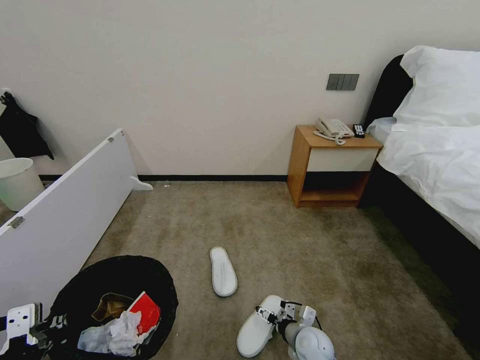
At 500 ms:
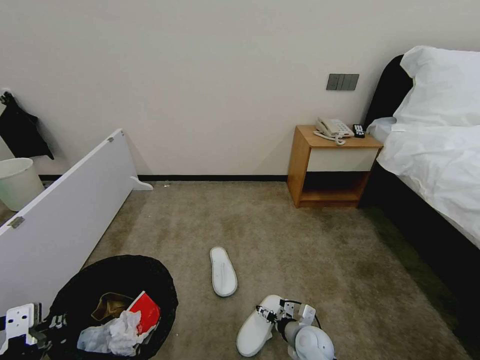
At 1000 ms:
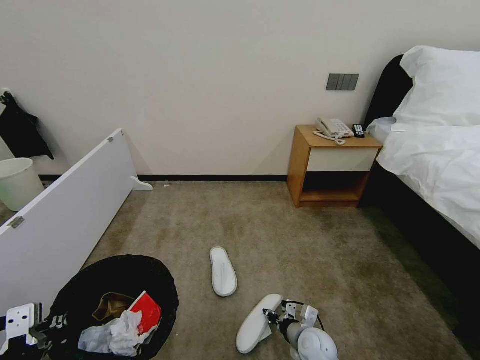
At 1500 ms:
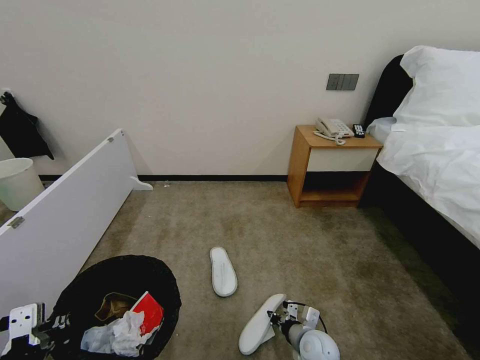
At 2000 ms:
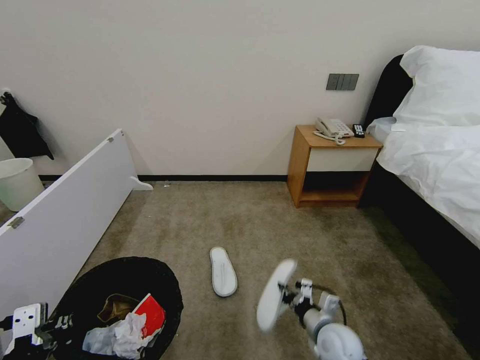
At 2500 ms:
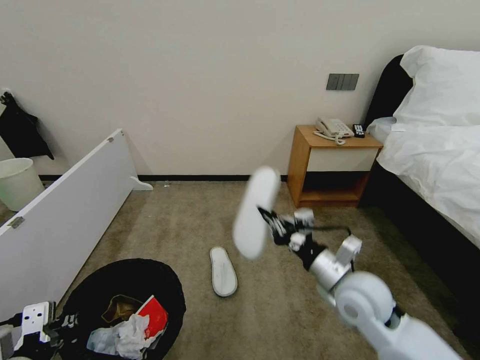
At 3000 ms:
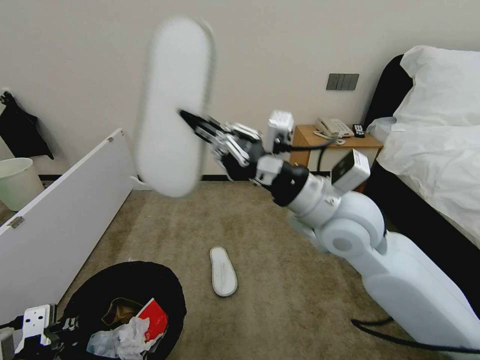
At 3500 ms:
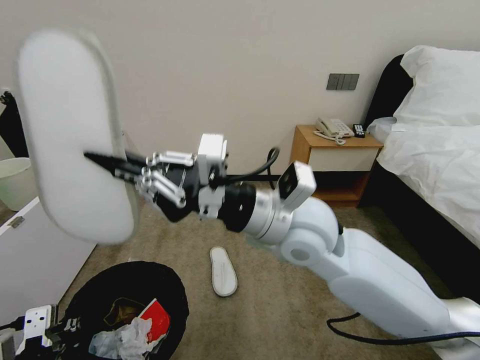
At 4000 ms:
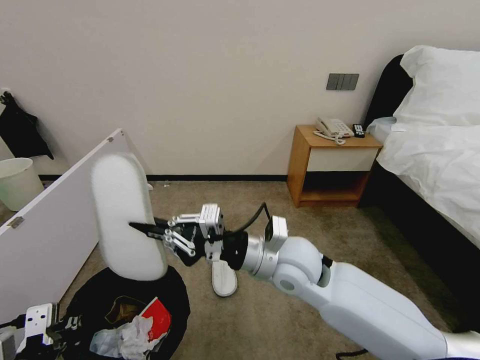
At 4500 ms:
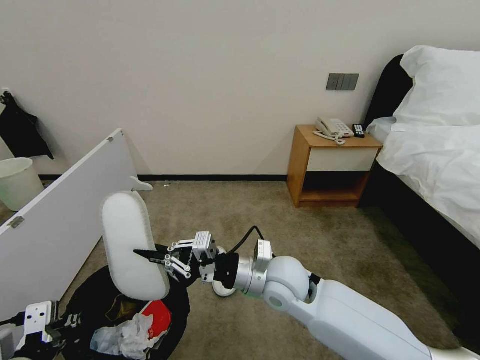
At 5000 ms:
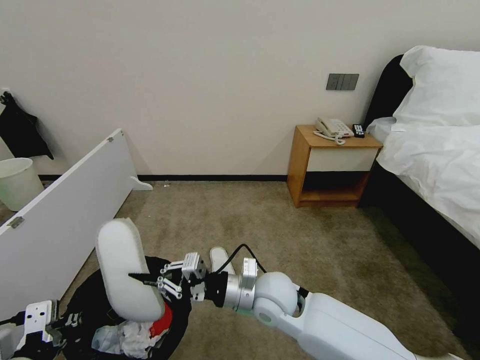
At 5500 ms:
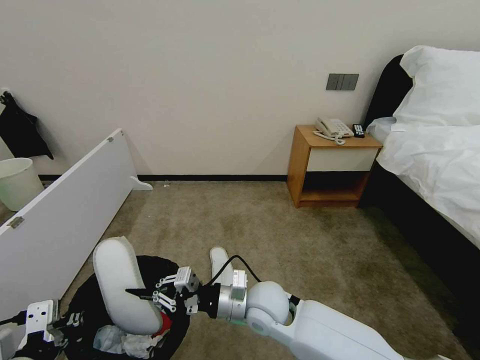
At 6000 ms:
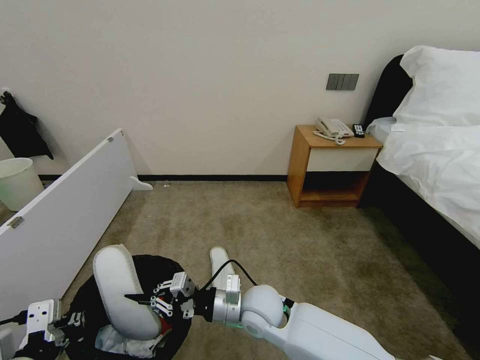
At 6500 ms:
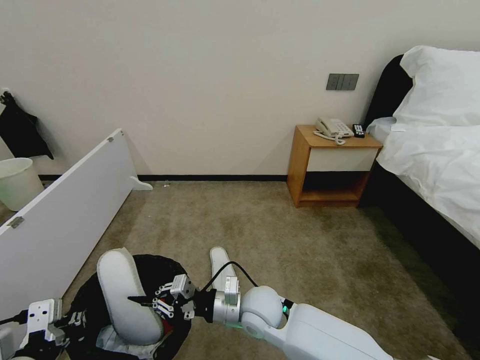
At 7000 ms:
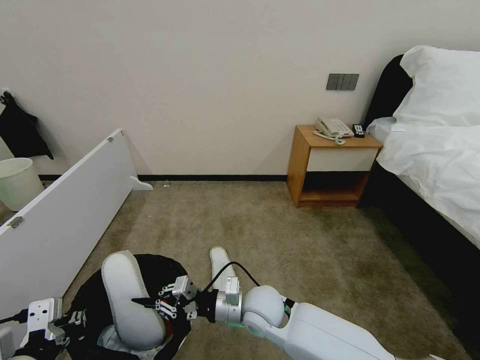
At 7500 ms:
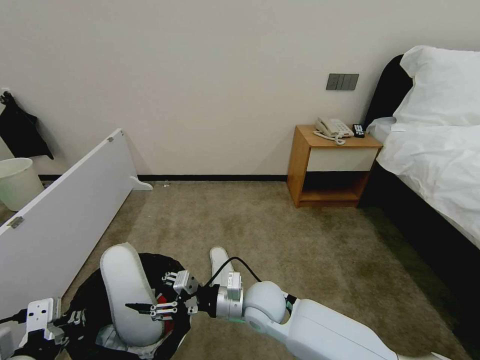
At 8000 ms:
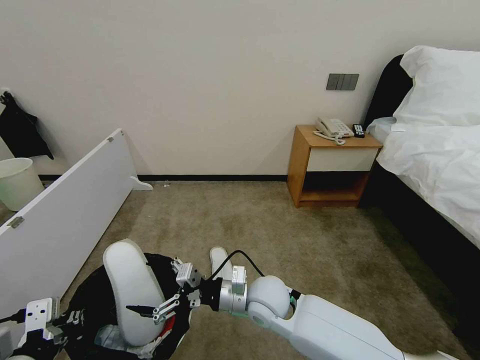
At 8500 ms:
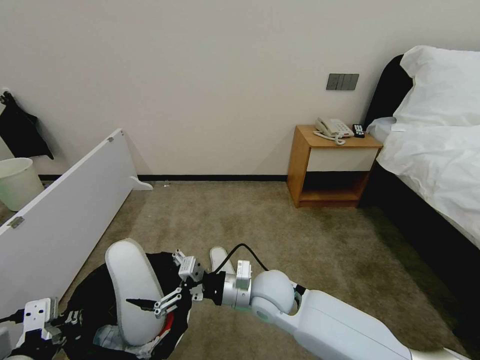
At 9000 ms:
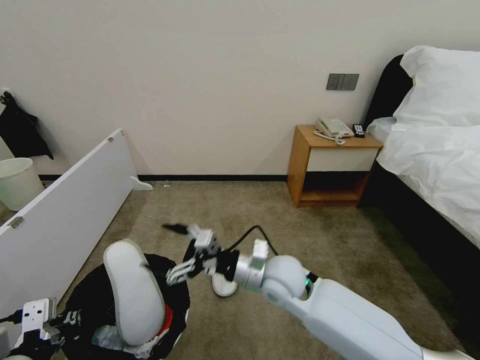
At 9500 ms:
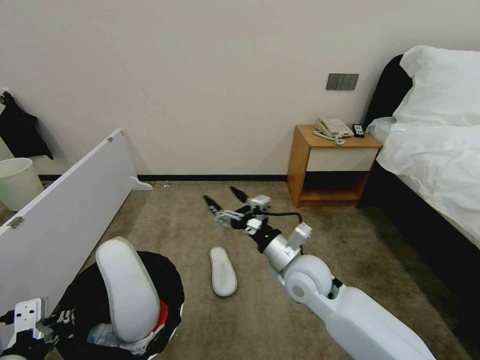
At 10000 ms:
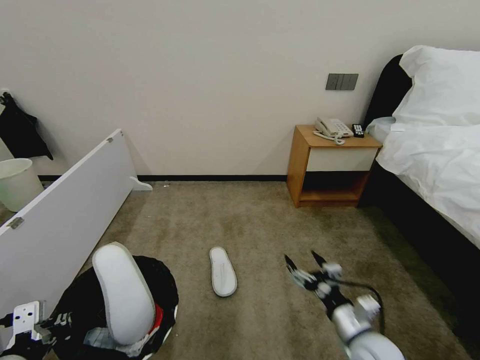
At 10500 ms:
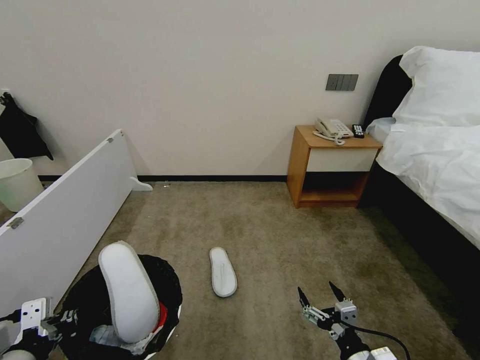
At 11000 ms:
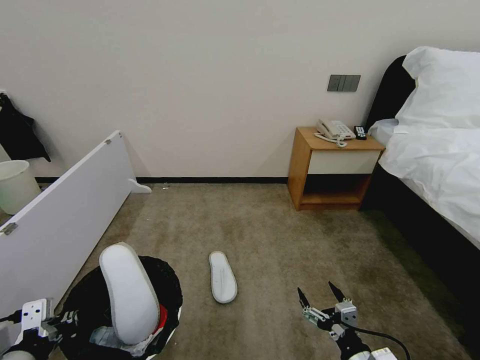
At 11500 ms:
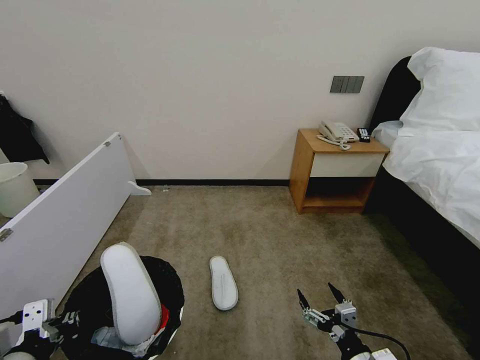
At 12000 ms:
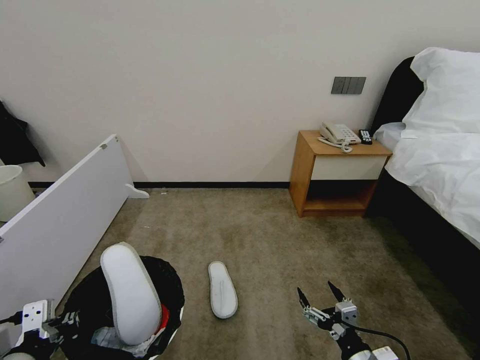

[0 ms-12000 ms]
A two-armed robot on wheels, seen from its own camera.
Task of the whole recording: Pick up the trash bin, then pick up the garbage from the floor and place it into the trash bin.
0 ms to 2000 ms: The right gripper goes roughly 10 cm upward, and closes up.
2000 ms to 4000 ms: The right gripper travels upward and to the left by some 30 cm.
4000 ms to 6000 ms: The right gripper shifts some 15 cm downward.
6000 ms to 8000 ms: The right gripper opens.
8000 ms to 10000 ms: The right gripper shifts about 25 cm to the right and backward.
10000 ms to 12000 ms: The right gripper moves backward, approximately 10 cm.

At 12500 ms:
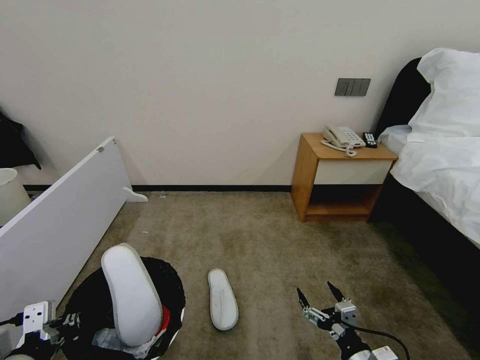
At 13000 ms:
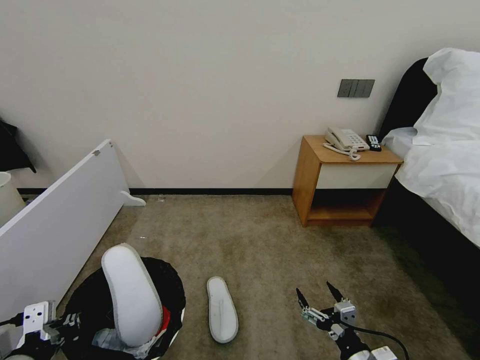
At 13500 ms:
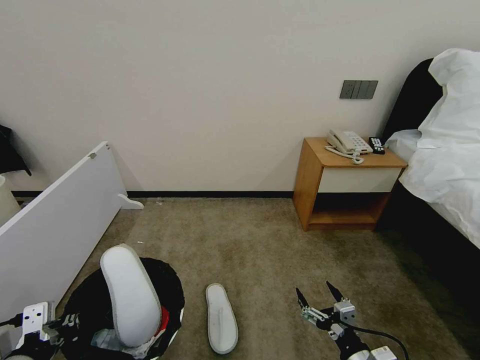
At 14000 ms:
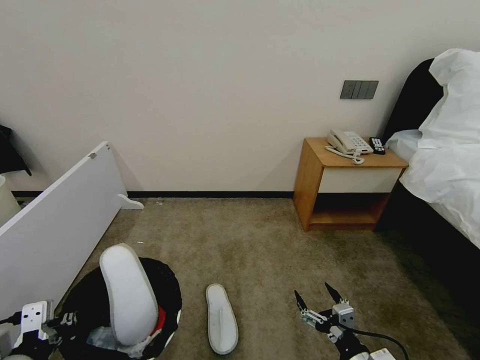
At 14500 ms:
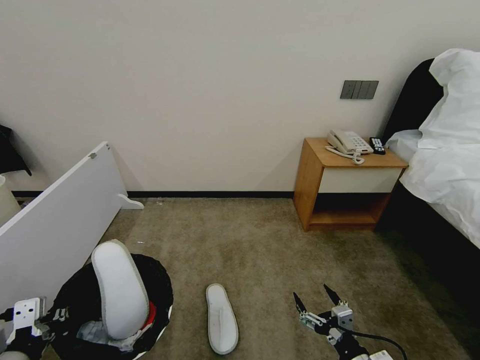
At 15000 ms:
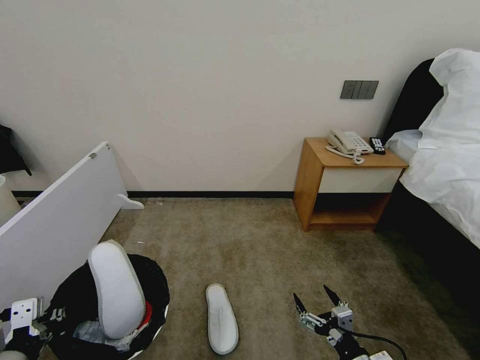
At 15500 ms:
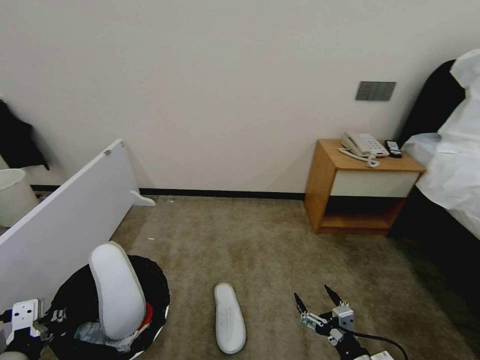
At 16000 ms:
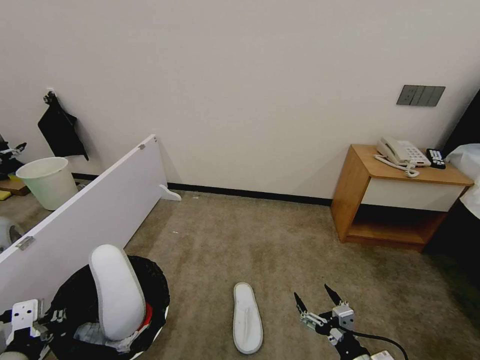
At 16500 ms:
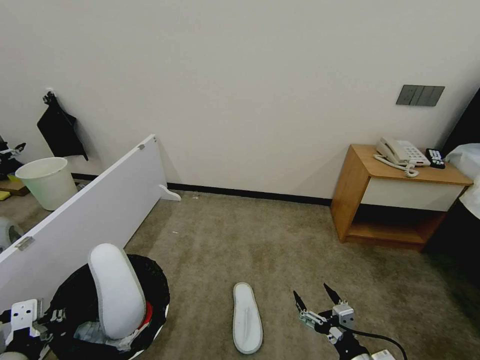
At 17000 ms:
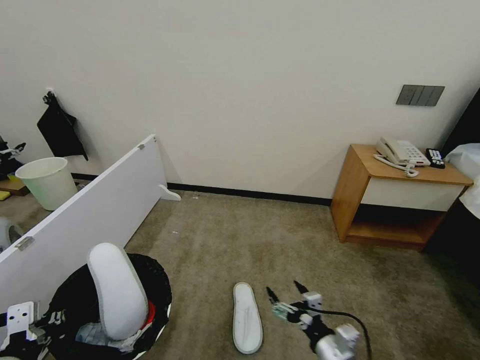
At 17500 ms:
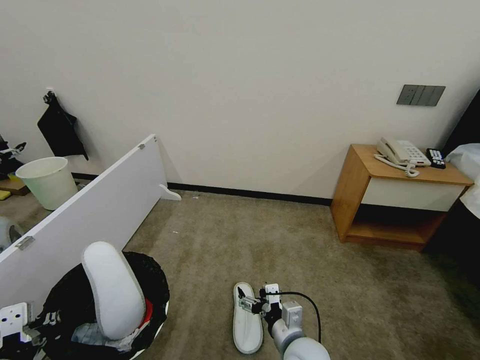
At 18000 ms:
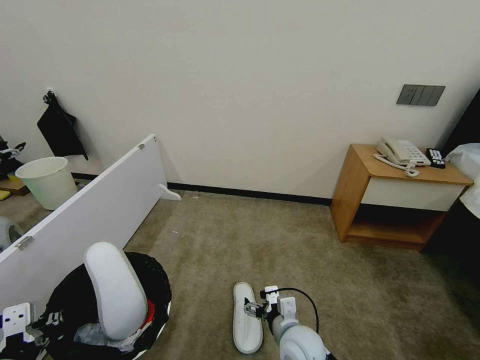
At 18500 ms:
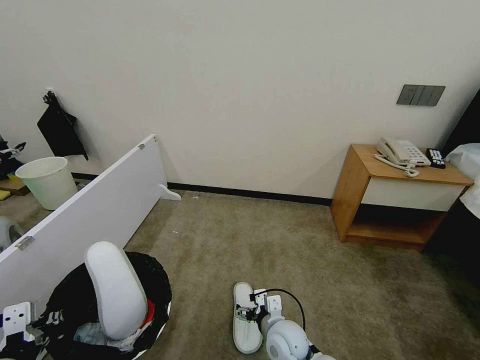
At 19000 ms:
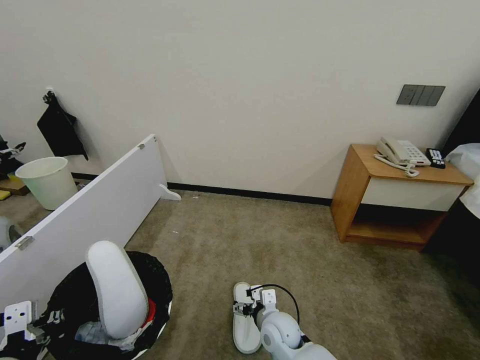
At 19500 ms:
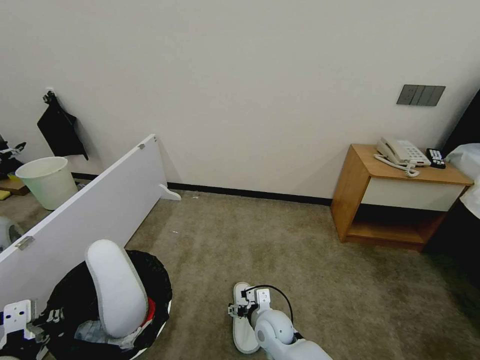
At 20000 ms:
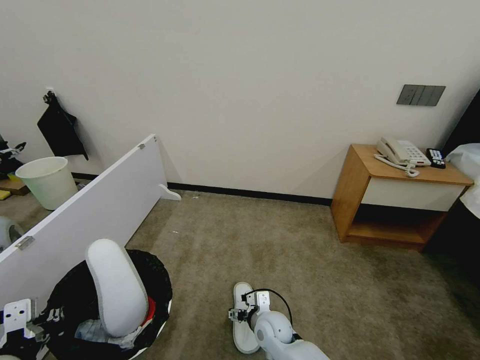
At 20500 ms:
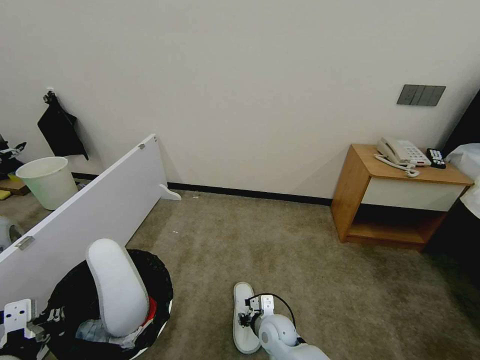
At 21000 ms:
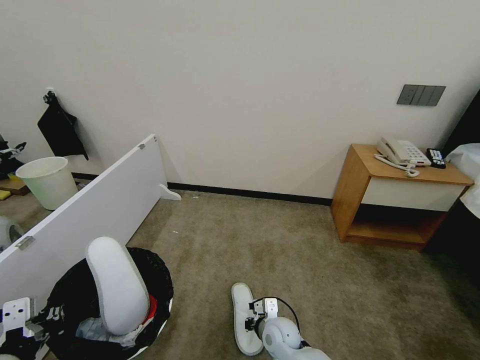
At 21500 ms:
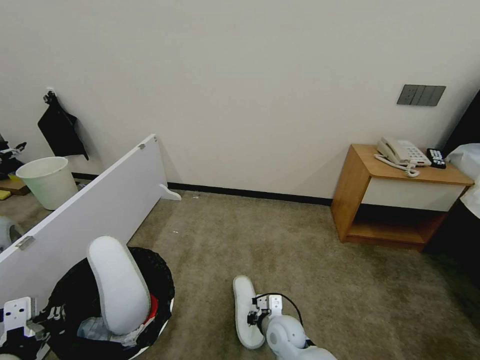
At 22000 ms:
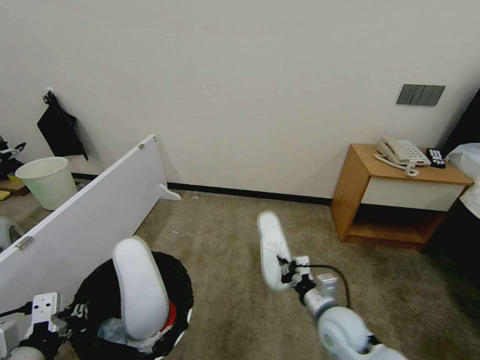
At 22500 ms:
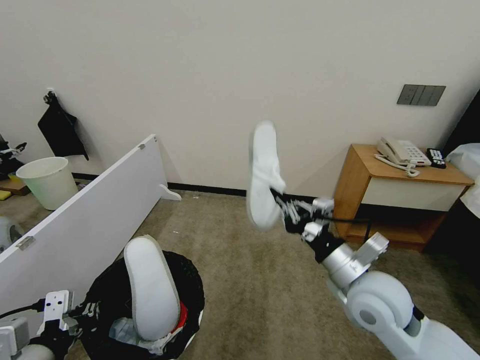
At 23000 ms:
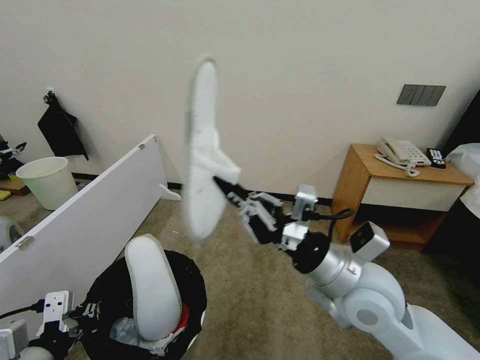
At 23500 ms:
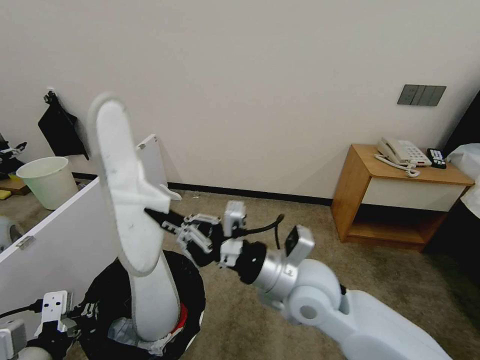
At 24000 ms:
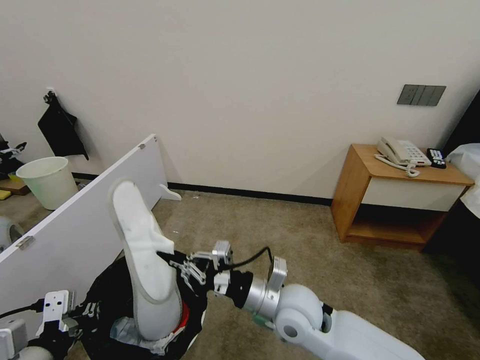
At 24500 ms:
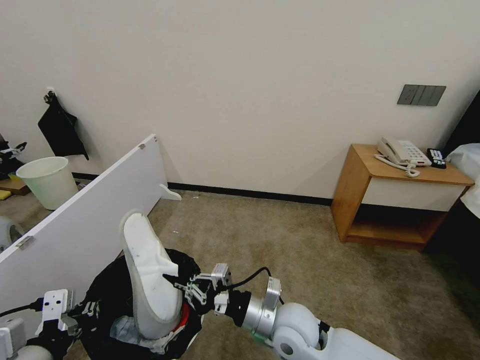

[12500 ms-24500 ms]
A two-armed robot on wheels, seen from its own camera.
Task of the whole recording: Pick up the trash bin, then pick up the garbage from the floor and place it into the trash bin.
12500 ms to 14500 ms: The grippers make only small movements.
16500 ms to 18500 ms: The right gripper travels to the left and forward by some 20 cm.
18500 ms to 20500 ms: The right gripper goes roughly 5 cm downward, and closes its fingers.
20500 ms to 22500 ms: The right gripper moves upward and to the right, some 30 cm, and closes.
22500 ms to 24500 ms: The right gripper is displaced to the left and downward by about 15 cm.

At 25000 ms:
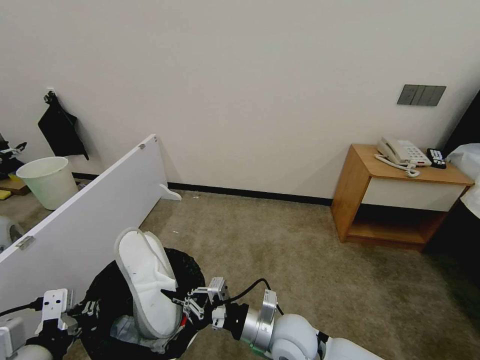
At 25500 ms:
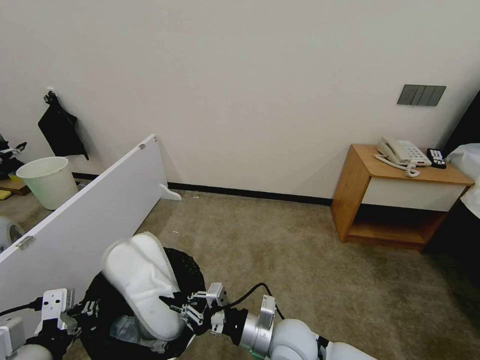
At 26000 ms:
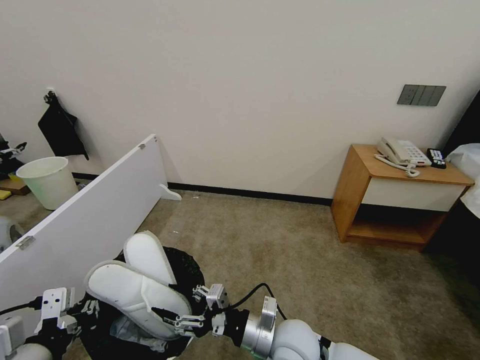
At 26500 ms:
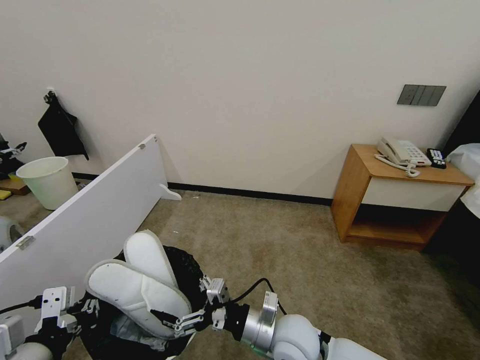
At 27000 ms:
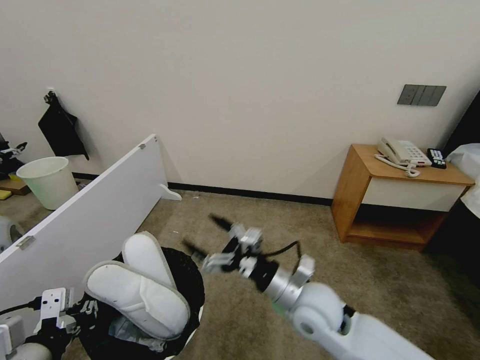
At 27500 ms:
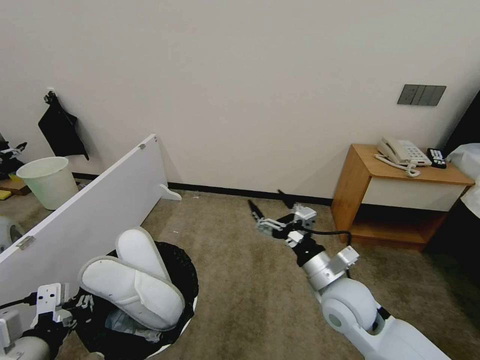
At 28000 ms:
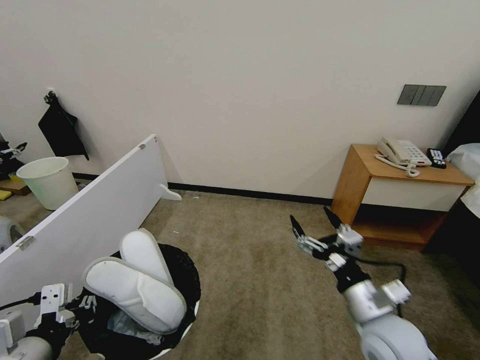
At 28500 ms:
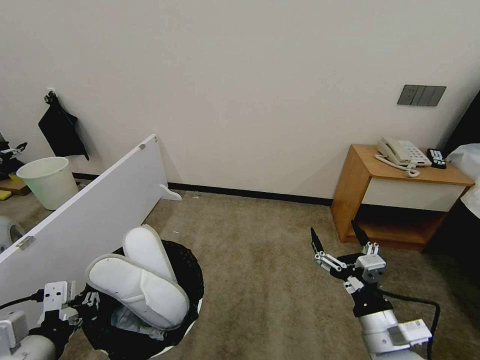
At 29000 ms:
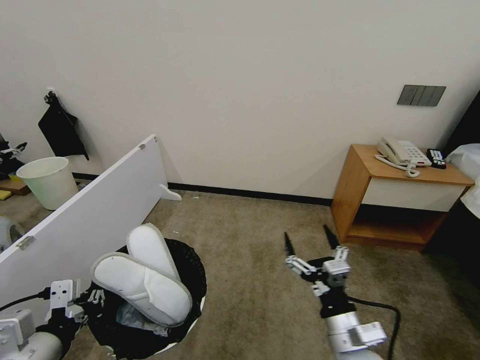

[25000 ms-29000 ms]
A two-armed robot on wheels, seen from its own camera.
Task of the whole recording: Pick up the trash bin, then pick up the garbage from the floor and place it into the trash bin.
25000 ms to 27000 ms: The right gripper heads upward, covering approximately 5 cm, and opens its fingers.
27000 ms to 29000 ms: The right gripper shifts roughly 10 cm backward and to the right.
